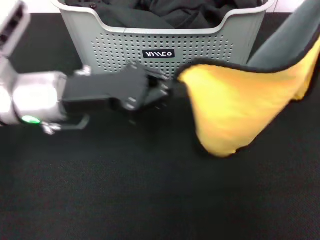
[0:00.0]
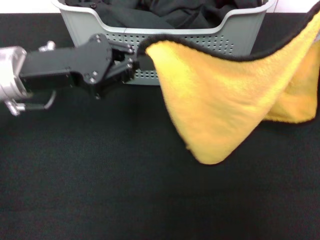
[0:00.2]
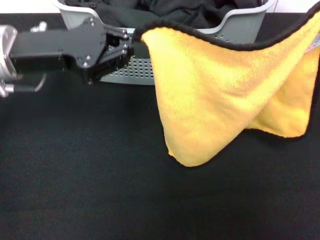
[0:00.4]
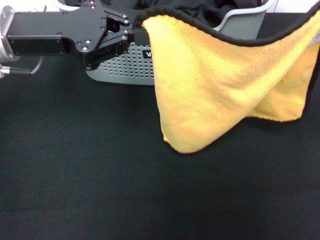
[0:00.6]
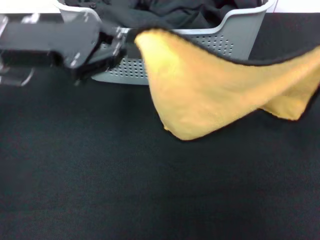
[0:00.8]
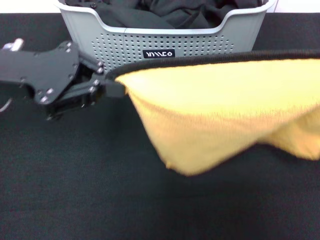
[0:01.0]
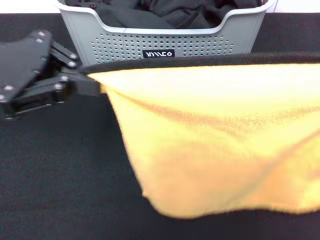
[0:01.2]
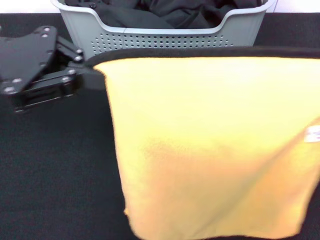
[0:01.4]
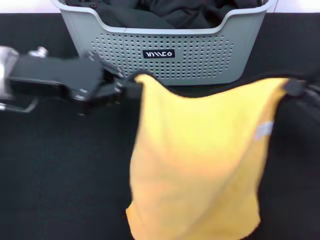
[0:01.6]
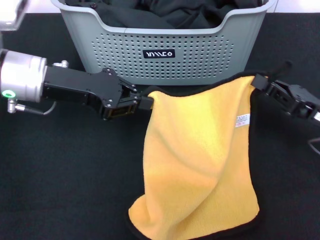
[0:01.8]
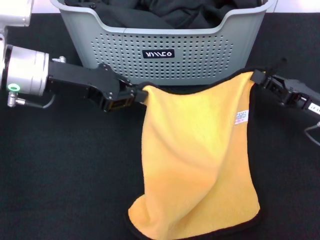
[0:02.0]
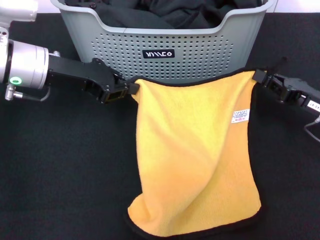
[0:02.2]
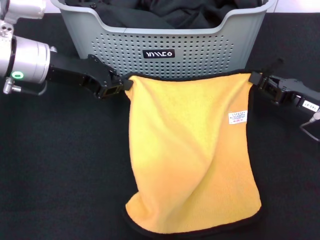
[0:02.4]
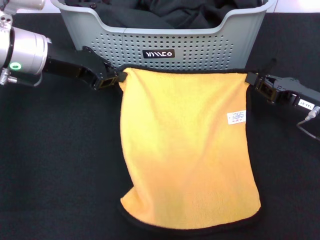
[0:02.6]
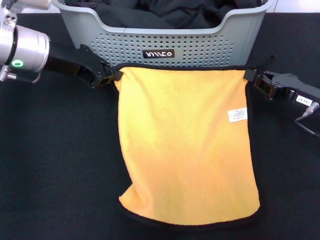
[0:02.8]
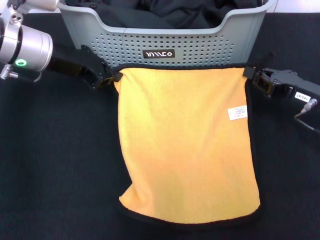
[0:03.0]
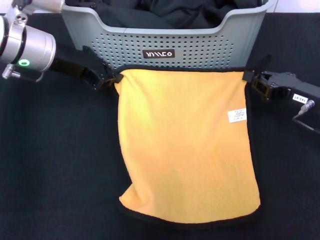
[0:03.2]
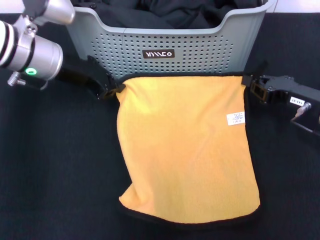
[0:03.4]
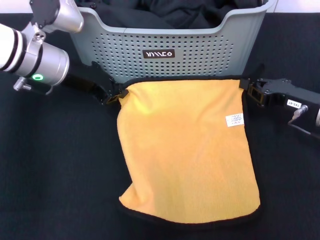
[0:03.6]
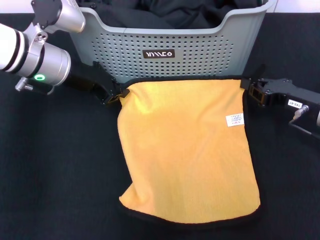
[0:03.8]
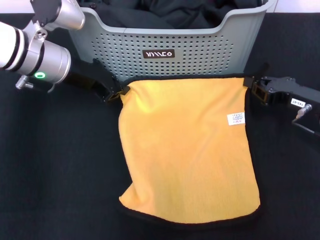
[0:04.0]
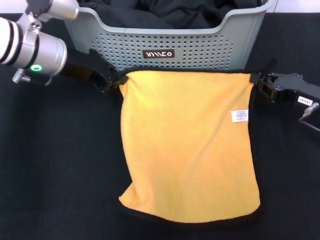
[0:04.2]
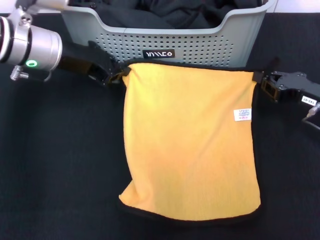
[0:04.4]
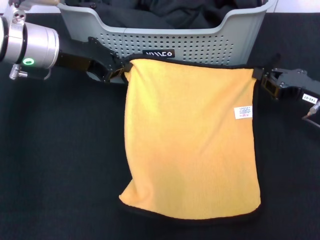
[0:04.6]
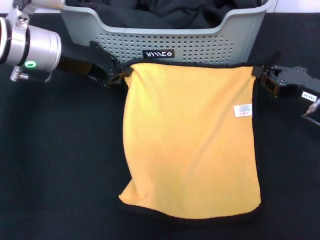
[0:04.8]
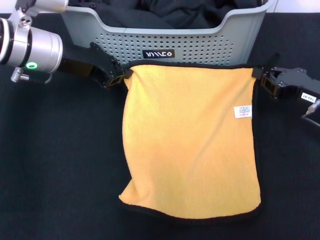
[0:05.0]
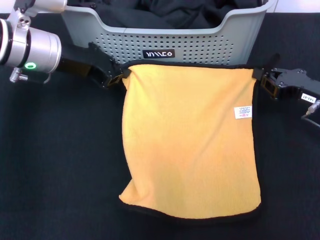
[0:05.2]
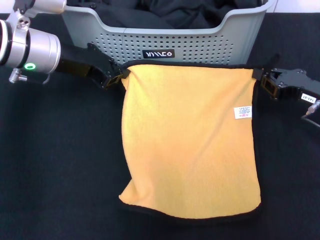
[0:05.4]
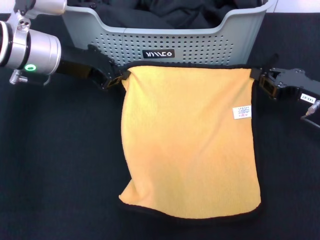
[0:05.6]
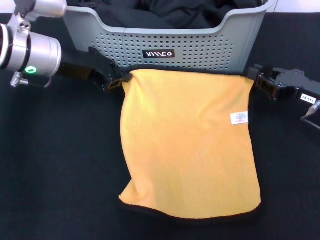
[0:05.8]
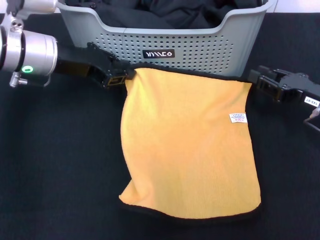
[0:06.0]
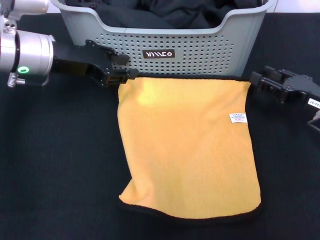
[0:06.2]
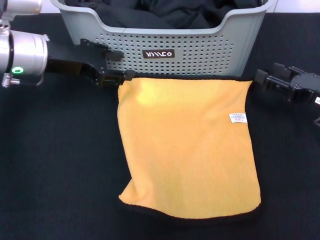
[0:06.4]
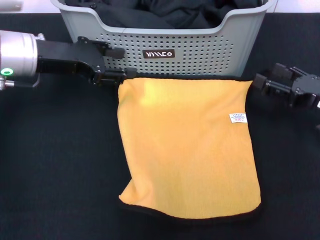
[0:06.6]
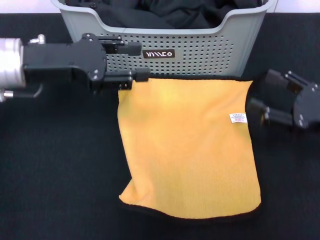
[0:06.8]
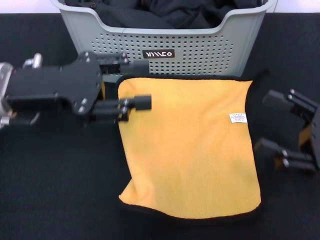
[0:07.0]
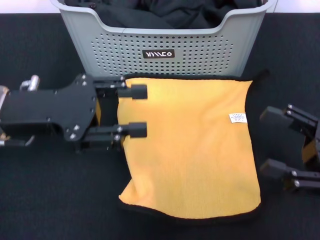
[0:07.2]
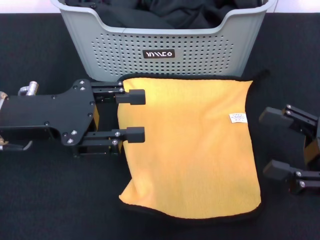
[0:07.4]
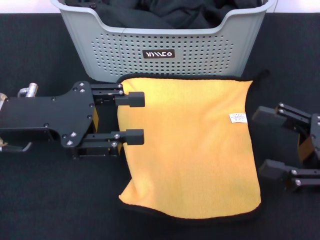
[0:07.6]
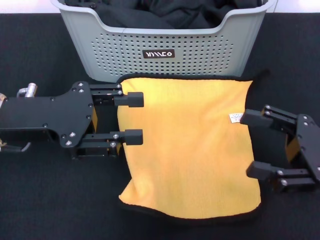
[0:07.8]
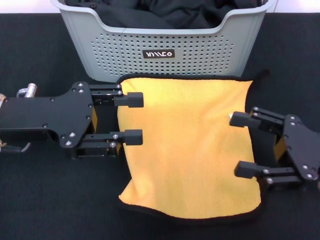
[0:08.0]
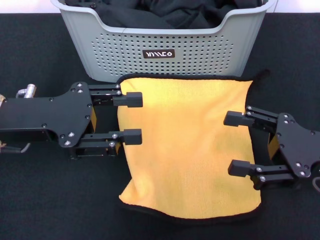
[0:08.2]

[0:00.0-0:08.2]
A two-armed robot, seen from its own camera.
Task of the whole recording: pick up the towel from the storage box and lay it flat on the black tablecloth.
Step, 0:00.0 to 0:06.2: Spread the towel flat with the right gripper.
0:00.0 to 0:01.6: The left gripper is displaced to the left by approximately 5 cm; the right gripper moves downward and backward, approximately 15 cm.
0:01.6 to 0:03.2: The two grippers go approximately 10 cm forward.
0:03.2 to 0:05.0: The grippers stay close to where they were, moving slightly.
0:05.0 to 0:06.6: The right gripper opens. The left gripper opens up.
0:06.6 to 0:08.2: The left gripper moves backward, about 10 cm, while the right gripper moves backward, about 5 cm.

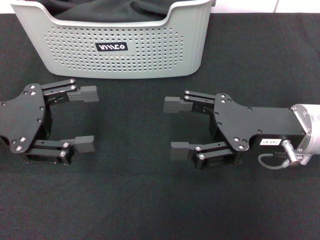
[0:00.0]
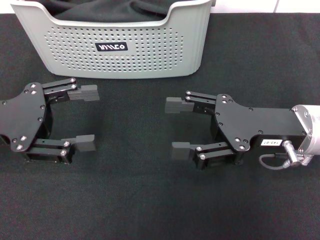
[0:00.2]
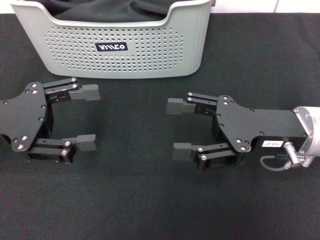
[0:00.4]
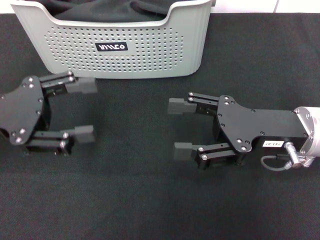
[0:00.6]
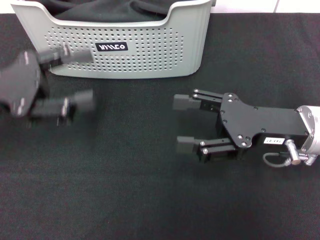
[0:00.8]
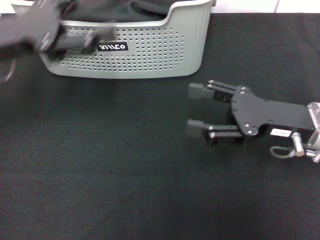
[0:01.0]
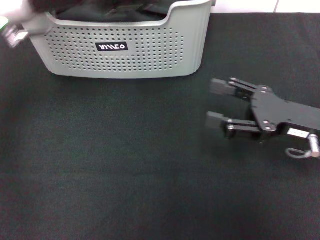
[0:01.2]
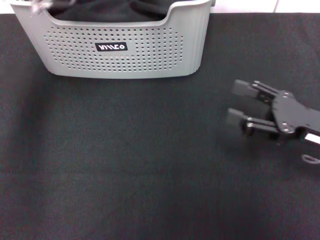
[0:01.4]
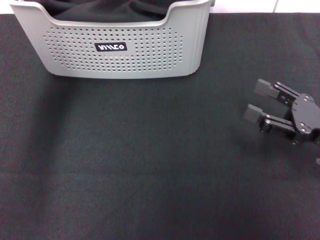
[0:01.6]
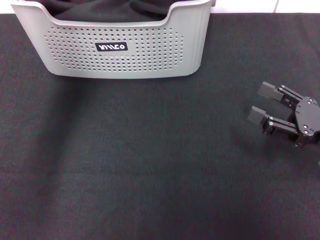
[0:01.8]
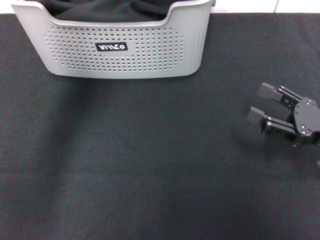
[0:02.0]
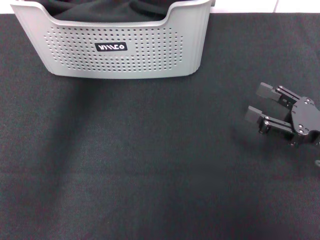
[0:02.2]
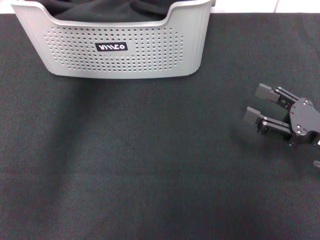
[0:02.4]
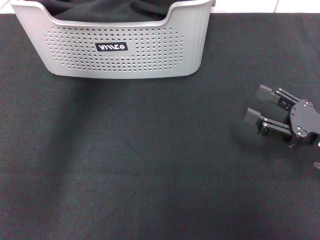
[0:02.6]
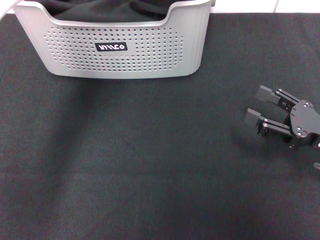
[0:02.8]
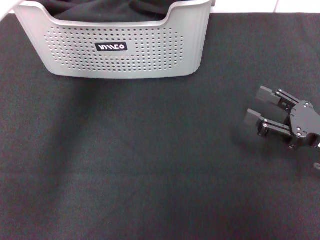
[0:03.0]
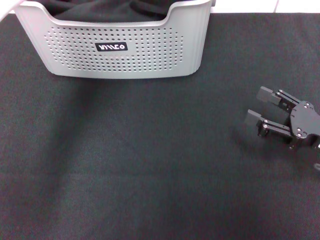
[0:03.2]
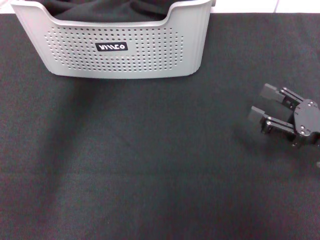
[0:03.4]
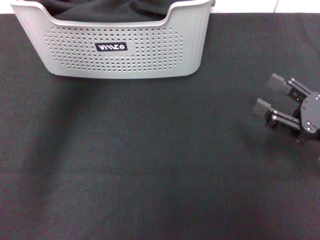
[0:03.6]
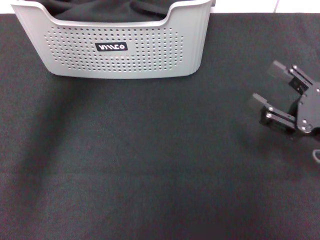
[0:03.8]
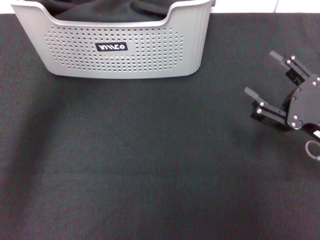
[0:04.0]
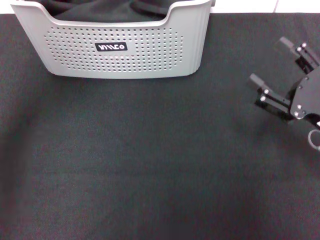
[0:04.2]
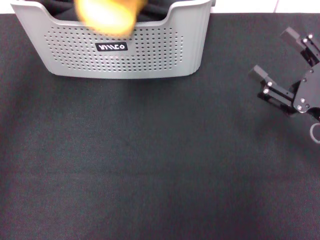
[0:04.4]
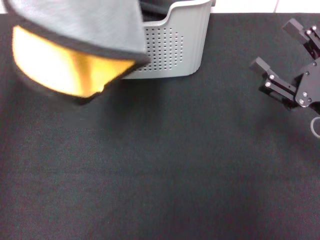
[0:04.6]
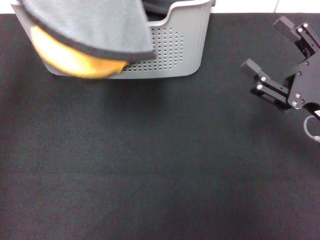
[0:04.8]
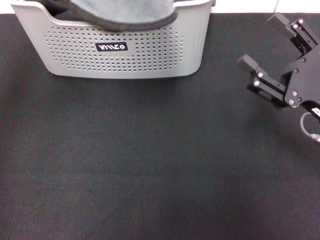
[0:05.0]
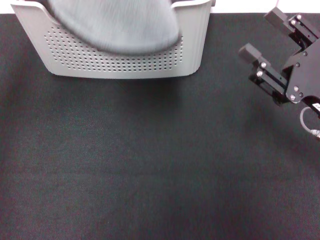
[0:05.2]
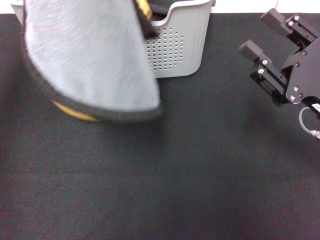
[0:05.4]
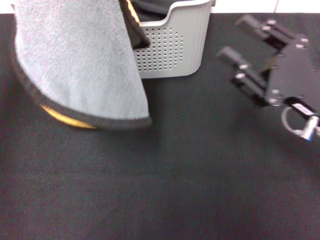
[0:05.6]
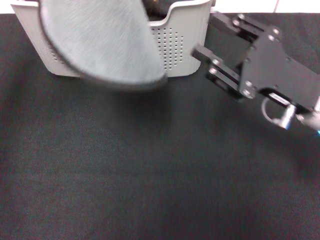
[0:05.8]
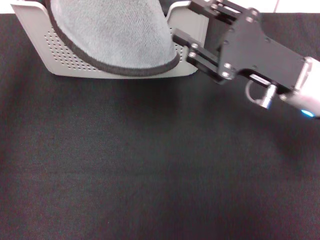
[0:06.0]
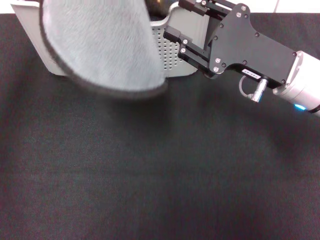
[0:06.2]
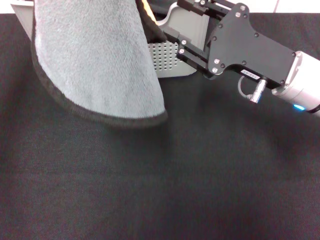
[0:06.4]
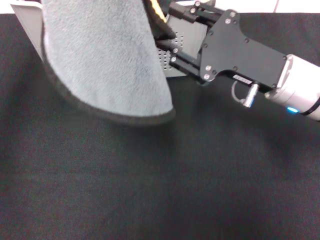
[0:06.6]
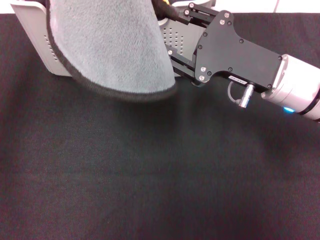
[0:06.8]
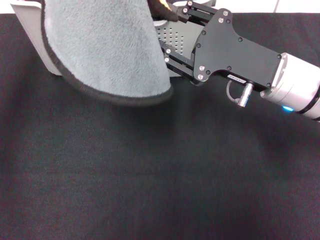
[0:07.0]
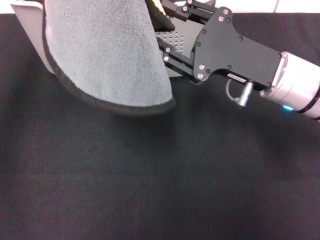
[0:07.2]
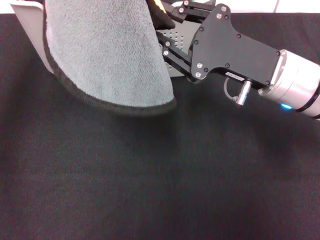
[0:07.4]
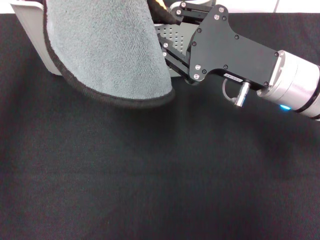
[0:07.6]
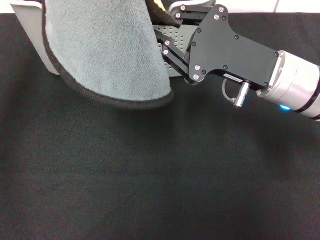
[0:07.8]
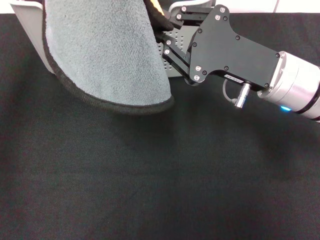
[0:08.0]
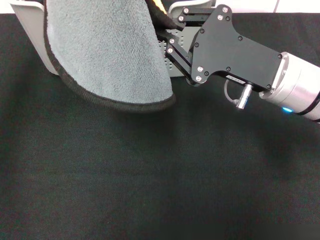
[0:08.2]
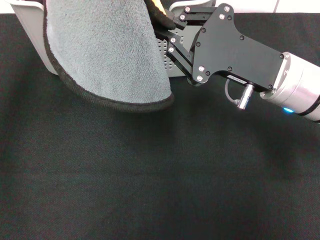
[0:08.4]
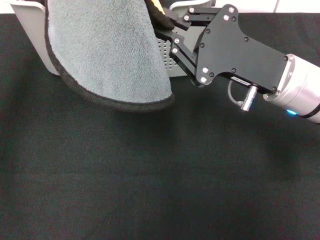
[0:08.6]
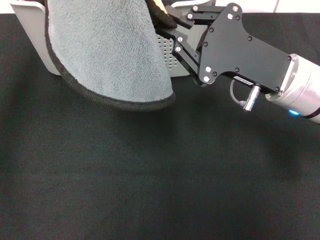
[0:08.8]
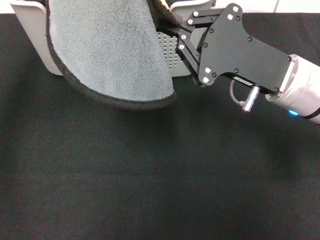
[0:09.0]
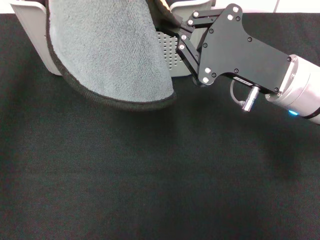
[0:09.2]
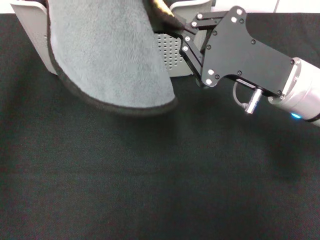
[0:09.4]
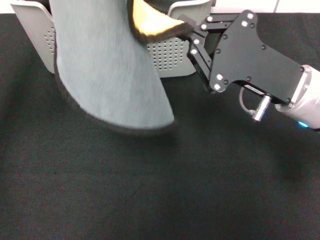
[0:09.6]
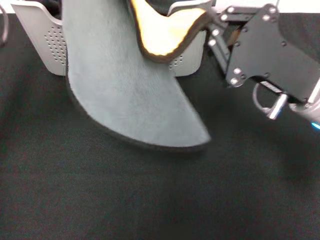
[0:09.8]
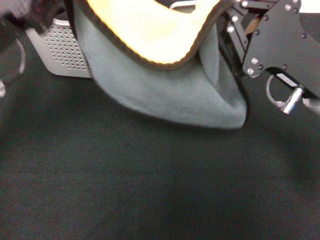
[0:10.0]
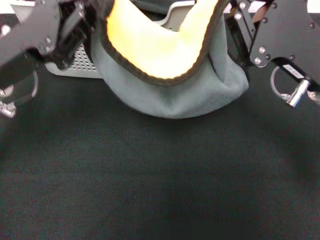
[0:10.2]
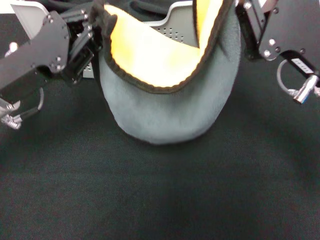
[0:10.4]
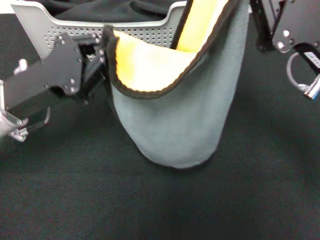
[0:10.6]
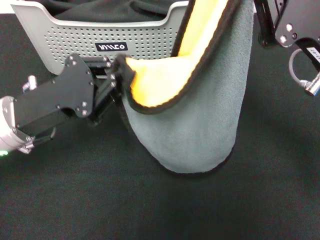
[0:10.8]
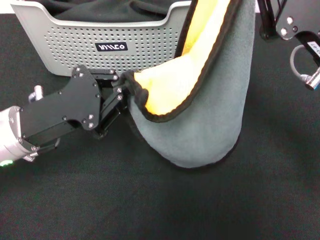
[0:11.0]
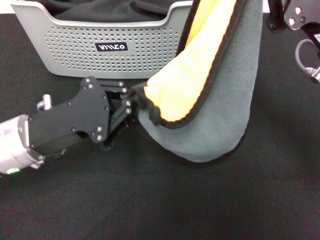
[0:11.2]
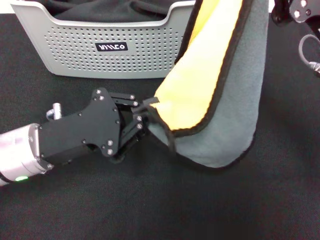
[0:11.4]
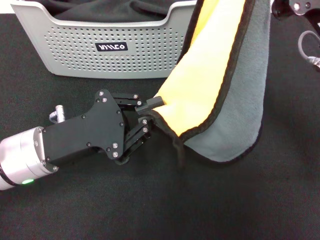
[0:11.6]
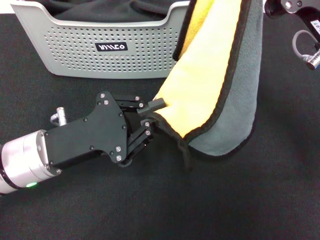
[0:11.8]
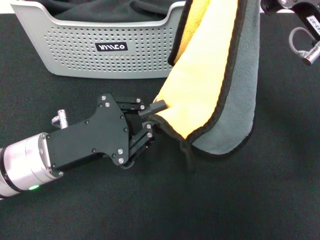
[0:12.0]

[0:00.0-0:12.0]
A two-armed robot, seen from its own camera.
Task of the whole recording: pick up the towel from the storage box and lay it flat on the black tablecloth.
Step, 0:00.0 to 0:03.2: Pick up a towel with the left gripper.
Step, 0:03.4 to 0:09.2: Spread the towel flat with the left gripper.
0:00.0 to 0:01.6: The right gripper shifts roughly 10 cm to the right; the left gripper moves to the right, forward and upward, some 25 cm.
0:01.6 to 0:03.0: The left gripper moves roughly 5 cm, and closes up.
0:03.0 to 0:04.4: The left gripper shifts roughly 20 cm to the left, backward and upward, and closes its fingers.
0:04.4 to 0:06.0: The left gripper shifts approximately 5 cm downward. Meanwhile the right gripper travels to the left, forward and upward by roughly 10 cm, and closes up.
0:06.0 to 0:07.6: The grippers move only a little.
0:07.6 to 0:09.0: The right gripper closes its fingers.
0:09.0 to 0:10.4: The right gripper ends up approximately 5 cm from where it was. The left gripper travels downward by approximately 15 cm.
0:10.4 to 0:12.0: The left gripper is displaced downward by some 5 cm.

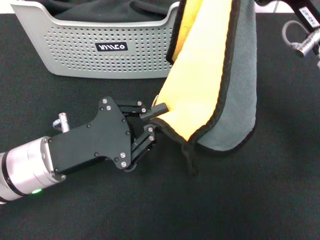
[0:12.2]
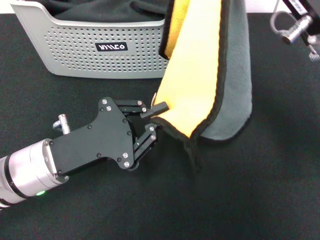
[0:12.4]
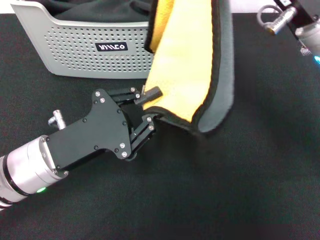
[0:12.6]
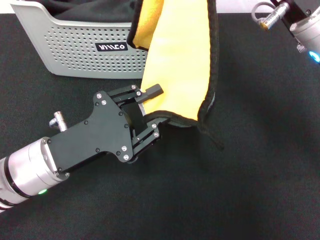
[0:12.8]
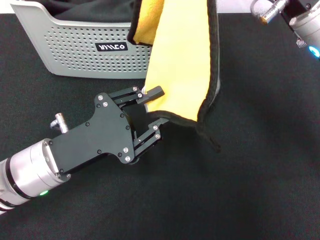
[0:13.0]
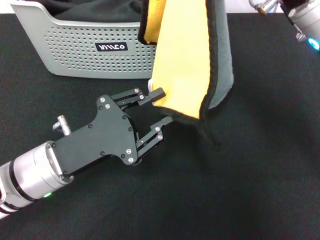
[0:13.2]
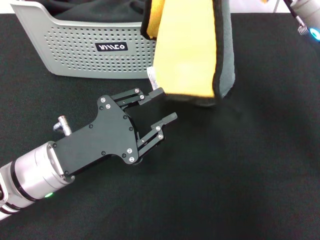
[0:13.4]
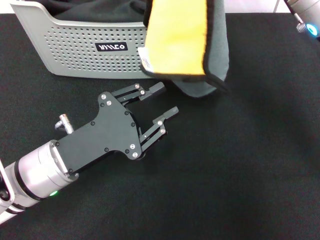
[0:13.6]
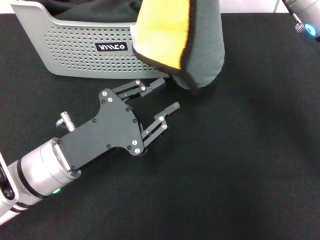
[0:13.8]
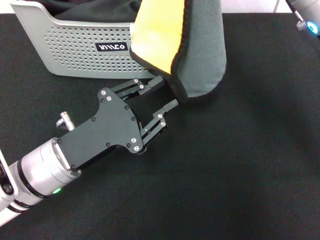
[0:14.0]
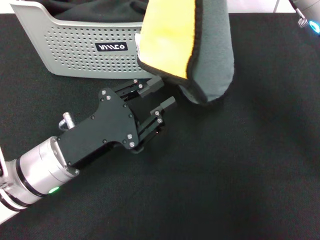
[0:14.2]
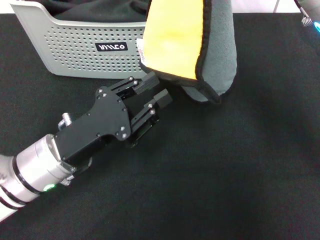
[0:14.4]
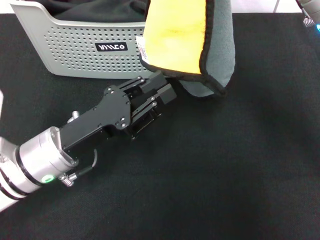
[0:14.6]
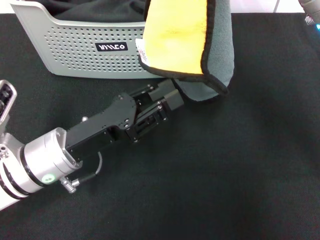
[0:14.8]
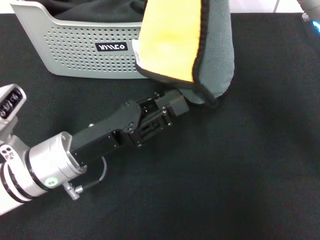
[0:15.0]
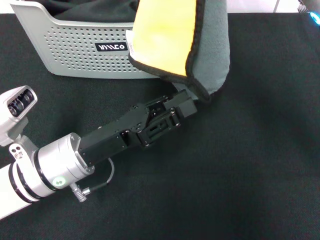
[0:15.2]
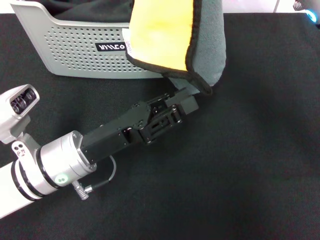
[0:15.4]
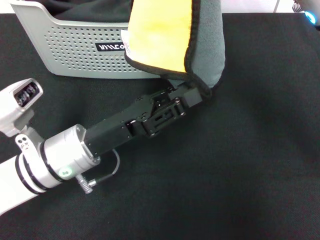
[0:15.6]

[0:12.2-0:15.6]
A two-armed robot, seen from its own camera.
Task of the whole recording: pick up the towel from the storage box and lay it flat on the black tablecloth.
0:12.2 to 0:13.8: The right gripper shifts by about 5 cm.
